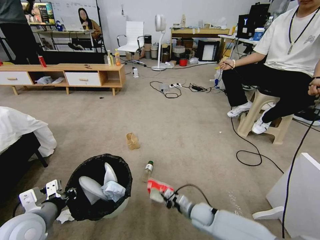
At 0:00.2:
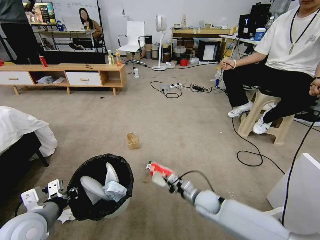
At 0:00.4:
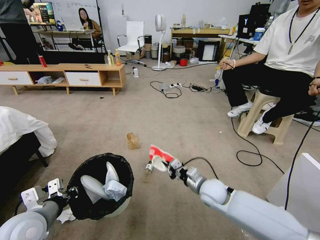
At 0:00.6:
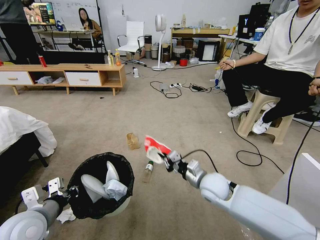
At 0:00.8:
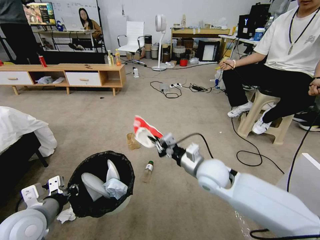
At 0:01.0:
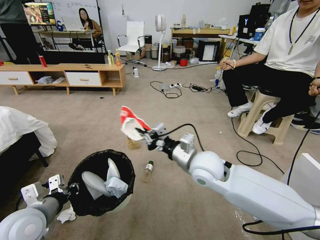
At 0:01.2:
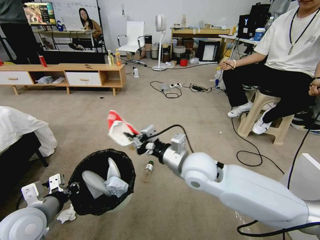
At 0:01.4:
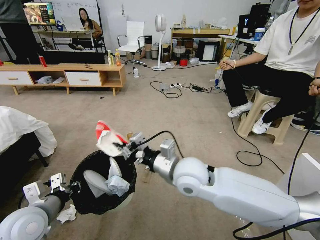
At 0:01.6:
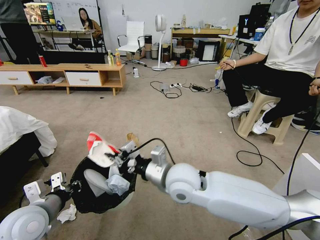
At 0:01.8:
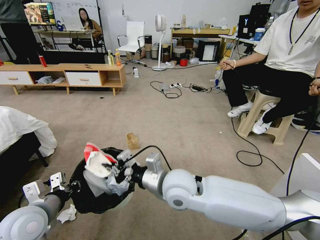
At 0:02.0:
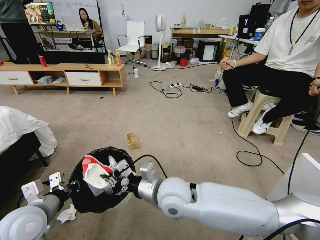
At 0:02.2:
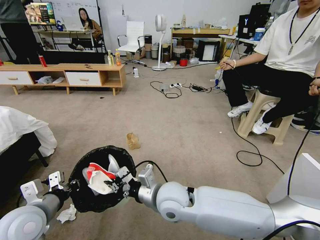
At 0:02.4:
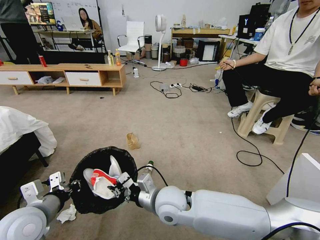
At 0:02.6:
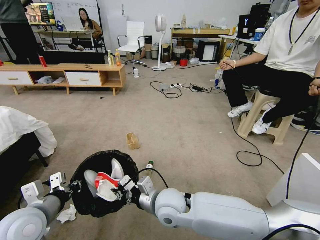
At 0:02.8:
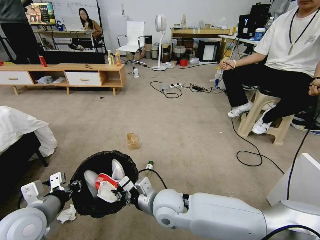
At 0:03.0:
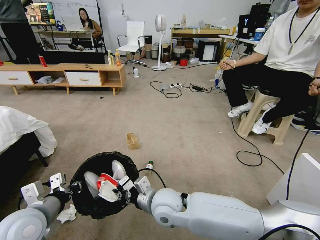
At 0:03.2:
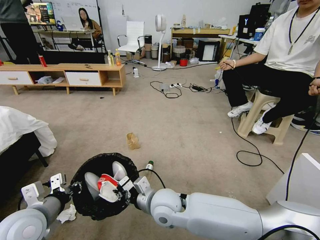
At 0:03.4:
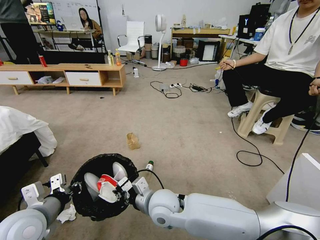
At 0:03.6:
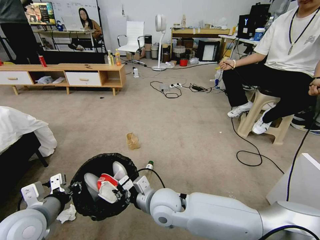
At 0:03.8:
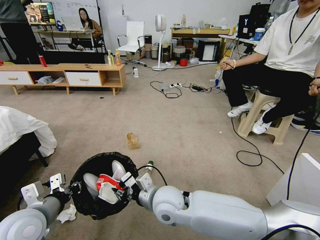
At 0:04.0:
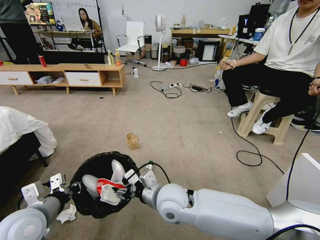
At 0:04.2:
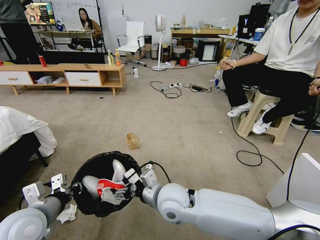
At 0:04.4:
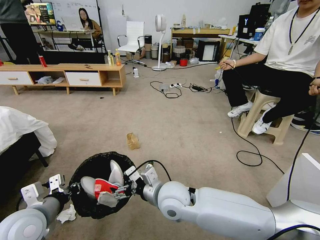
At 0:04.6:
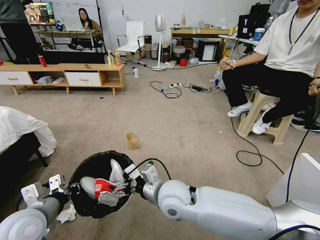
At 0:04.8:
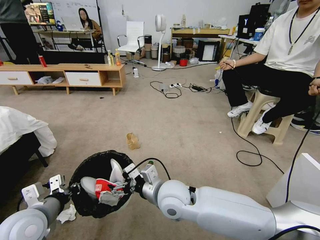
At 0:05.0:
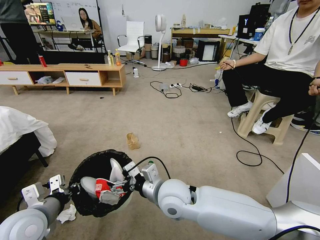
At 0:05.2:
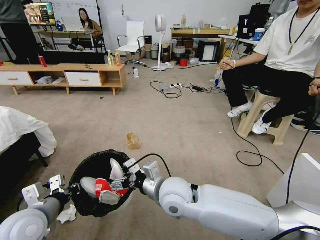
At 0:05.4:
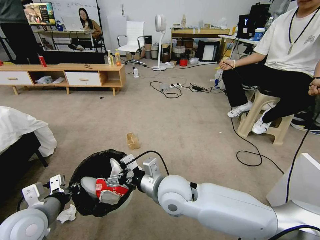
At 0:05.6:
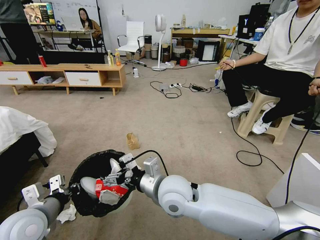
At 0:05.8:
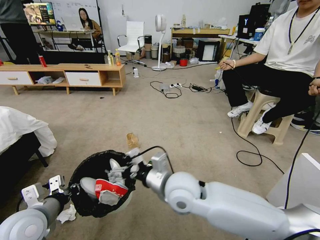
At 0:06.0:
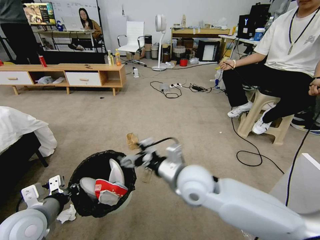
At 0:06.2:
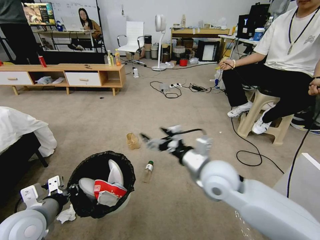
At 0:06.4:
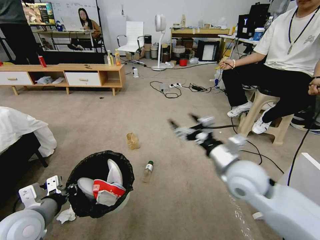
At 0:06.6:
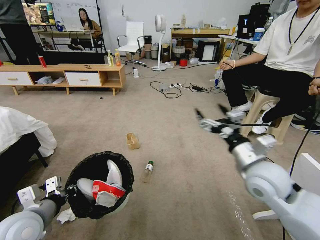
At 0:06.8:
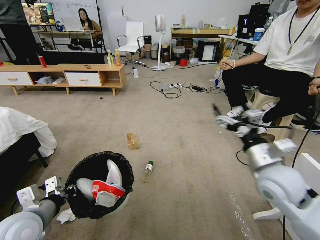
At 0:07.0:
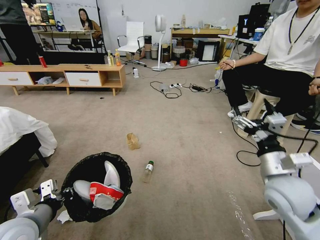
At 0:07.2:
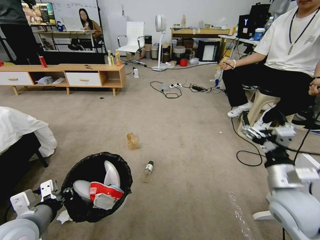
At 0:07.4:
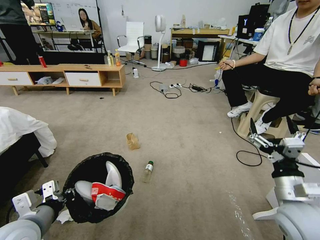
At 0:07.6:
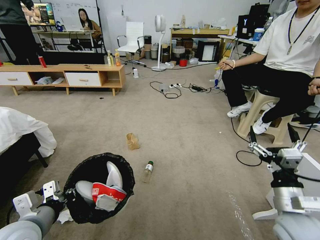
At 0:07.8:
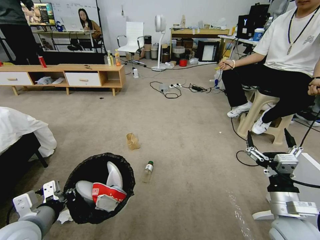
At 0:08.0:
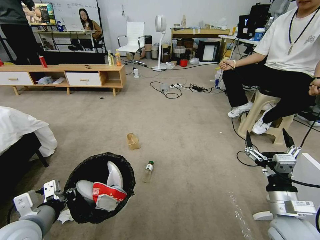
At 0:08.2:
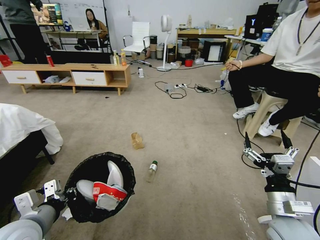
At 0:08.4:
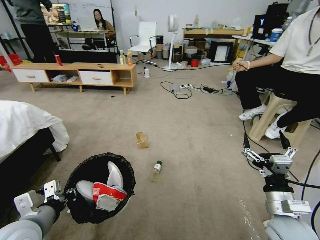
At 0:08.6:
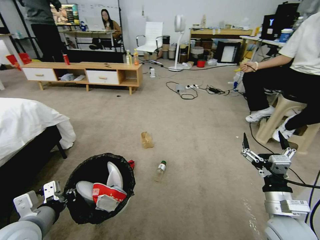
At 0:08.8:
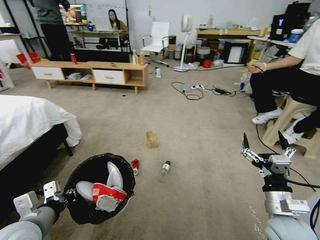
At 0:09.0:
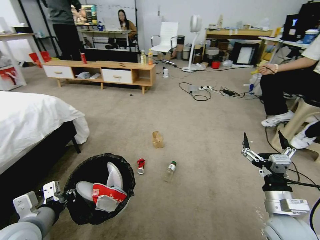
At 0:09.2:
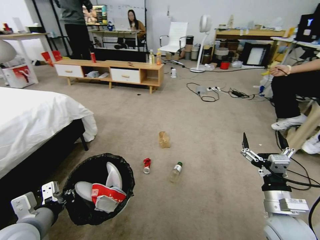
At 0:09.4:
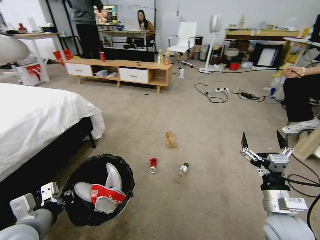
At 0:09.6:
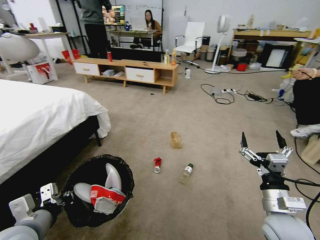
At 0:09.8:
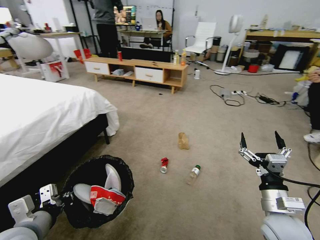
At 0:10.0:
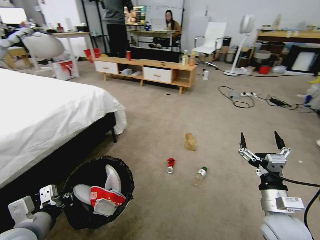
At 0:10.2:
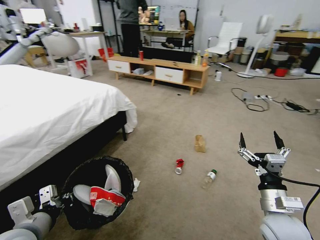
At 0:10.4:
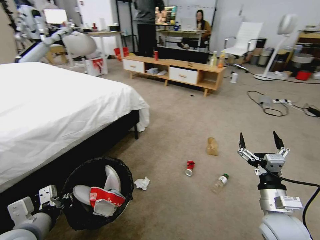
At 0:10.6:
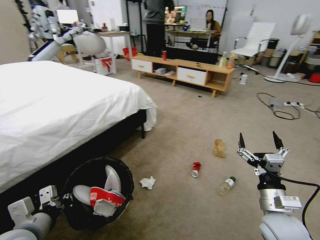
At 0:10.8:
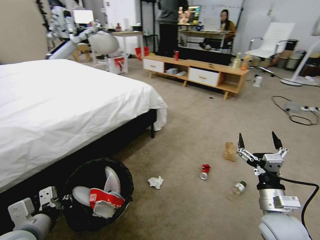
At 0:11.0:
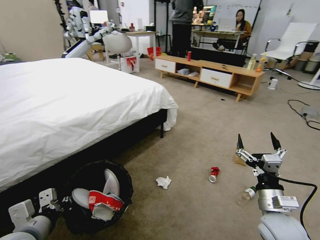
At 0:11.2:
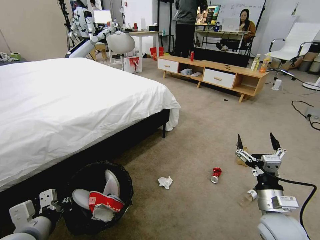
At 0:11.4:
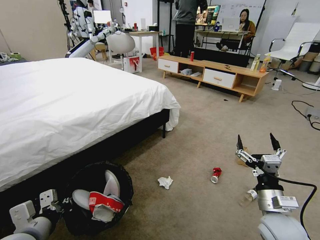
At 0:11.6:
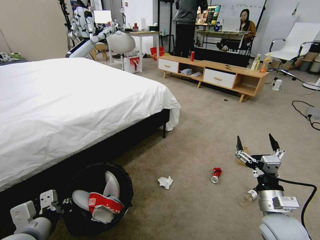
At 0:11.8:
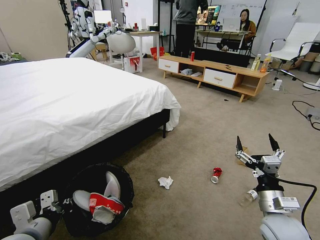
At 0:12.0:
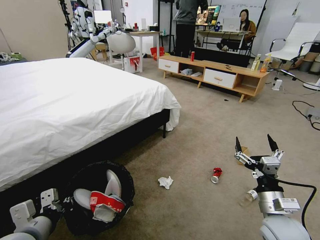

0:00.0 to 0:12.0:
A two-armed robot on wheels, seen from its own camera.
Task of the whole recording: Pick up the trash bin and place the garbage on the floor into it.
0:00.0 to 0:01.6: The right gripper goes some 30 cm upward.
0:01.6 to 0:03.0: The right gripper shifts some 10 cm downward.
0:03.0 to 0:04.4: The right gripper opens its fingers.
0:04.4 to 0:06.0: The left gripper closes, while the right gripper goes approximately 10 cm to the right and upward.
0:06.0 to 0:07.6: The right gripper heads to the right and backward, covering roughly 25 cm.

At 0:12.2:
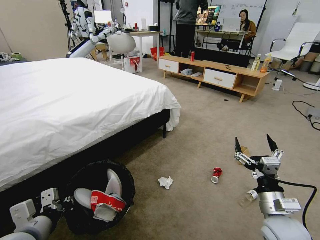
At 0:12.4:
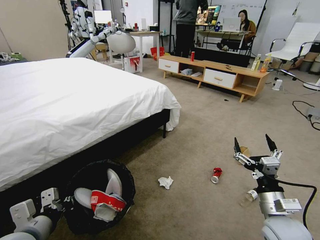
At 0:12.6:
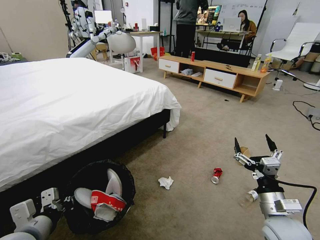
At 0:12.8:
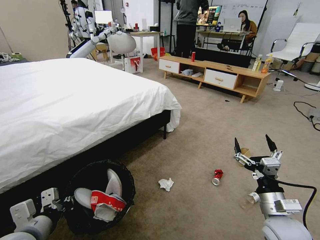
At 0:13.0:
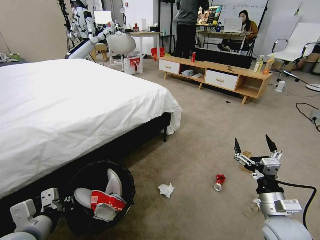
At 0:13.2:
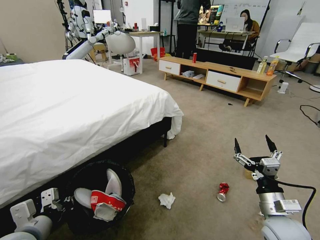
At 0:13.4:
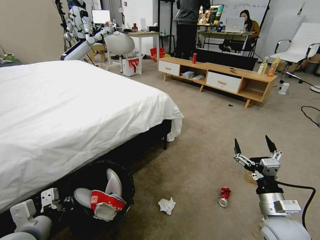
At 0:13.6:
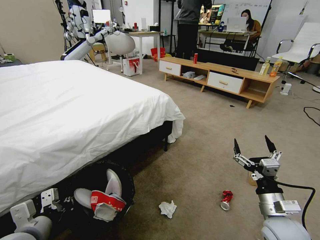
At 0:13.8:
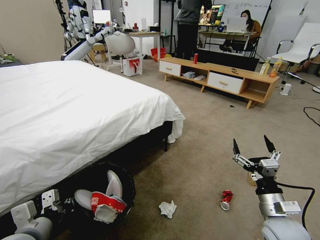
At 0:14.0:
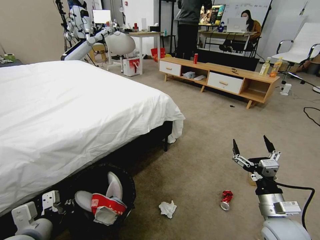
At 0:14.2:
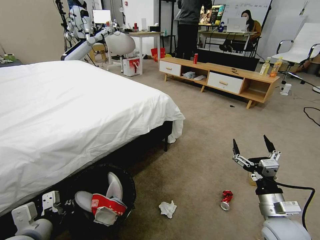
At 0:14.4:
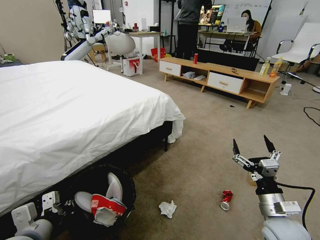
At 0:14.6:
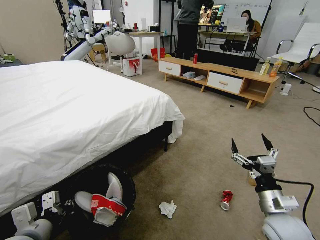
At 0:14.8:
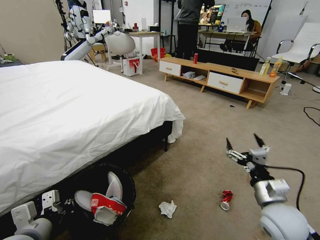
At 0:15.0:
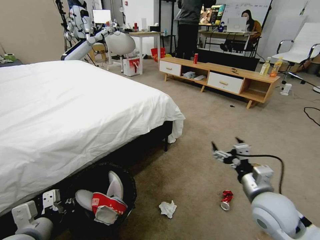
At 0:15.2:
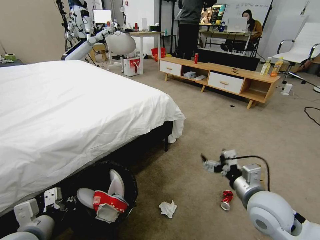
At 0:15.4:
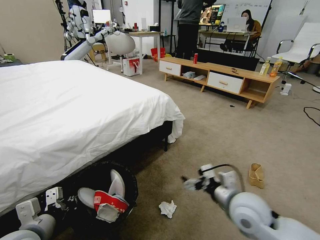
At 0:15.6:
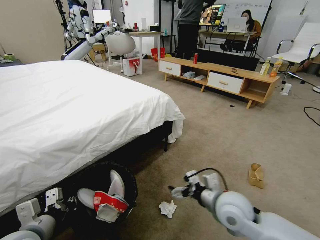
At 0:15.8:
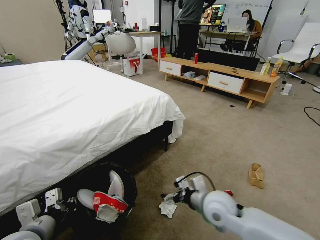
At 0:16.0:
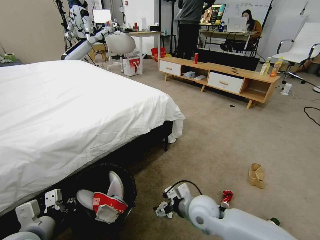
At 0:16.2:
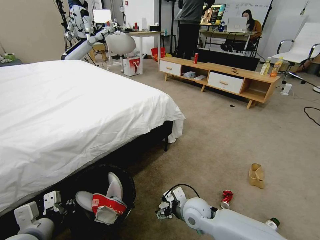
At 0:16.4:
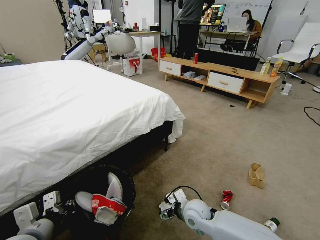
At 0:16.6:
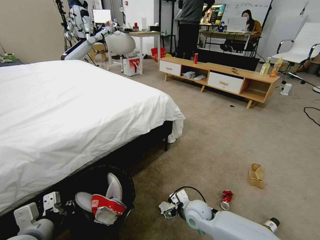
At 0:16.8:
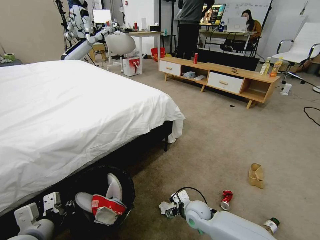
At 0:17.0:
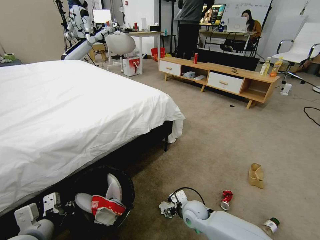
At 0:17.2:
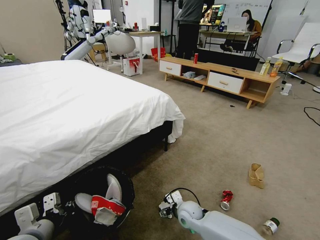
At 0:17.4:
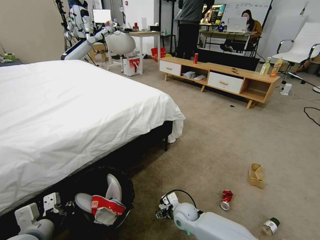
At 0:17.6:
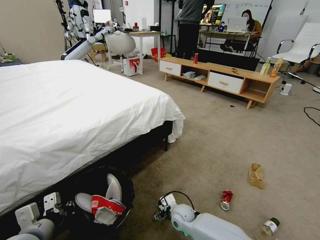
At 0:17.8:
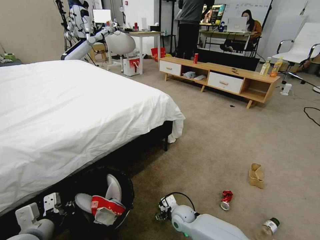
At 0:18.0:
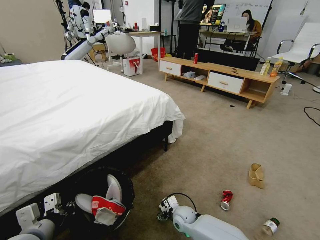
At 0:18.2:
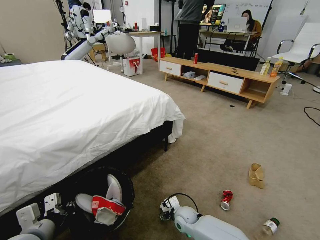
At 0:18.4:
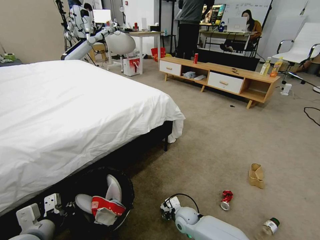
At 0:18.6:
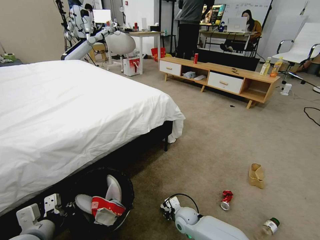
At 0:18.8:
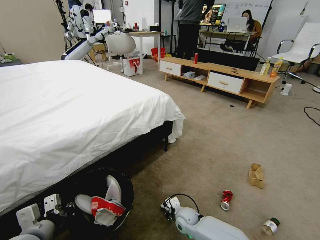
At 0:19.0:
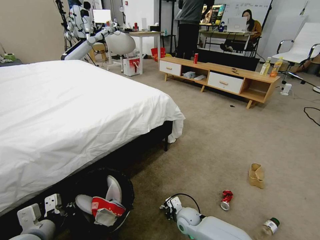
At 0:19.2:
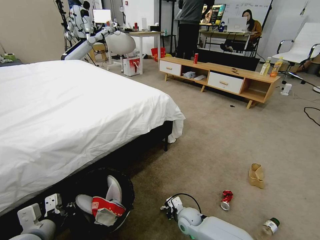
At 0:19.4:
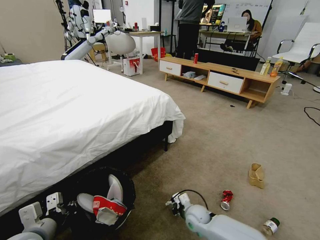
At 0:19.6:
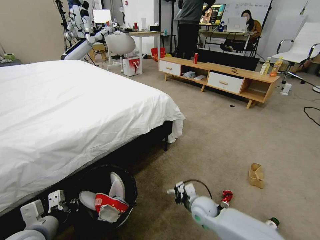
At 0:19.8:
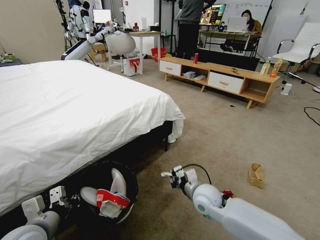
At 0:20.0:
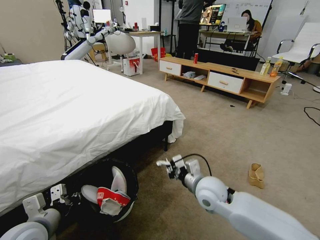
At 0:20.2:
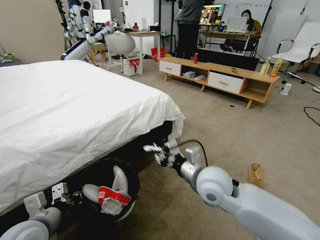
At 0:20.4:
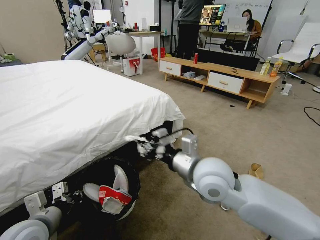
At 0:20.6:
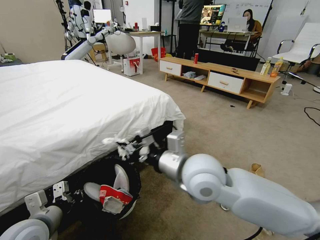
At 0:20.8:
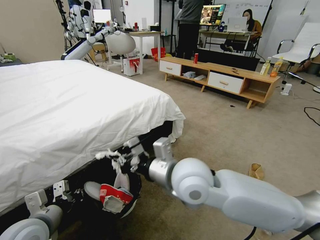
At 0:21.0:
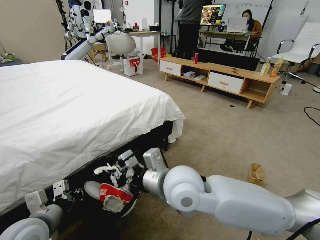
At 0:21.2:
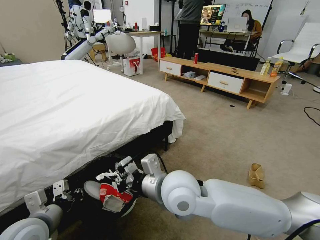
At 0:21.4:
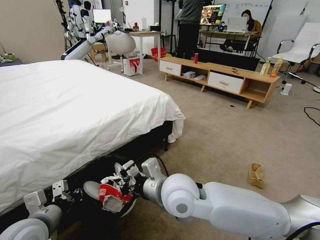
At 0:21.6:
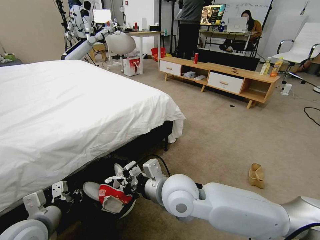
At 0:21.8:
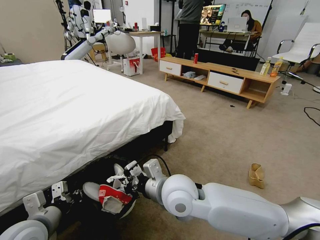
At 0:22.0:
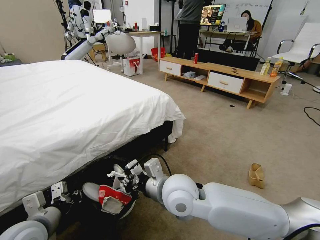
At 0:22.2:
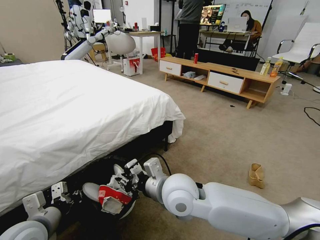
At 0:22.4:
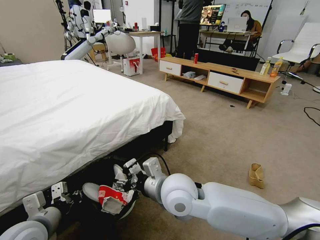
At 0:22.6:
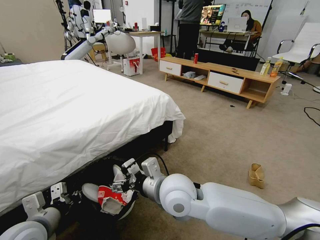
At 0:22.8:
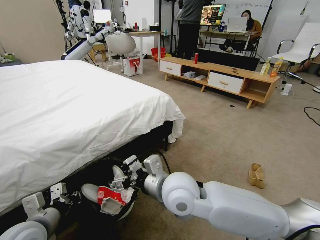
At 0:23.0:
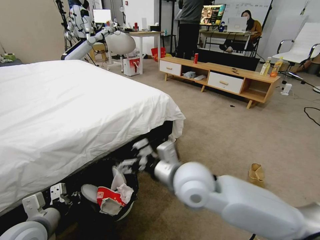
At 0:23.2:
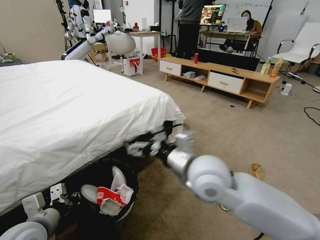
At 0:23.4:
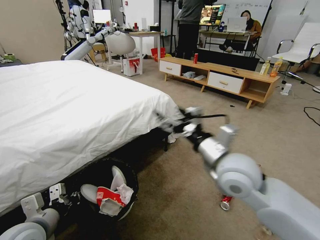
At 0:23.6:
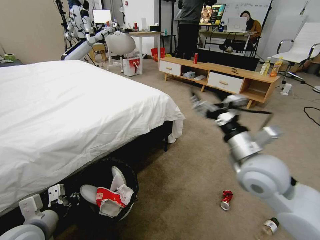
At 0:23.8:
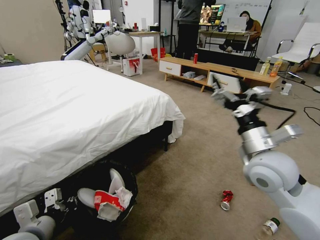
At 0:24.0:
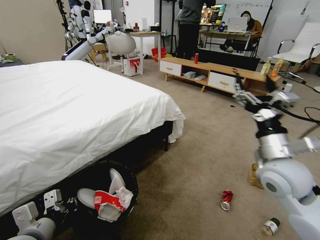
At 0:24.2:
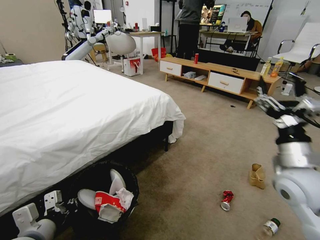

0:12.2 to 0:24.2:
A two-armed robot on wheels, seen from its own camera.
Task of the whole recording: Pick up the trash bin and place the garbage on the floor into it.
0:13.8 to 0:15.2: The right gripper heads upward and to the left, covering roughly 10 cm.
0:15.2 to 0:16.6: The right gripper moves downward and to the left, approximately 25 cm.
0:16.6 to 0:18.2: The right gripper shifts roughly 10 cm downward.
0:18.2 to 0:19.8: The right gripper shifts some 15 cm upward, and closes its fingers.
0:19.8 to 0:21.2: The right gripper heads upward and to the left, covering approximately 20 cm.
0:21.2 to 0:22.6: The right gripper opens its fingers.
0:22.6 to 0:24.2: The right gripper is displaced to the right by approximately 30 cm.
